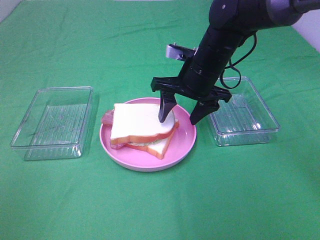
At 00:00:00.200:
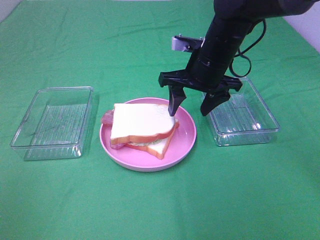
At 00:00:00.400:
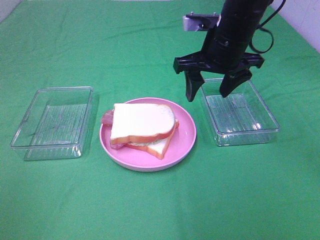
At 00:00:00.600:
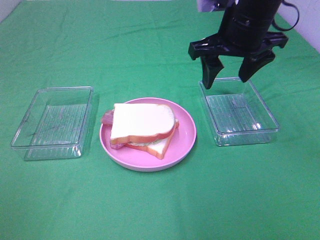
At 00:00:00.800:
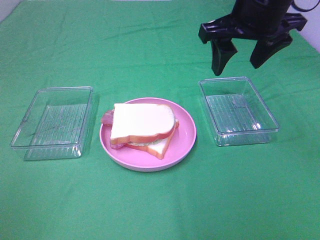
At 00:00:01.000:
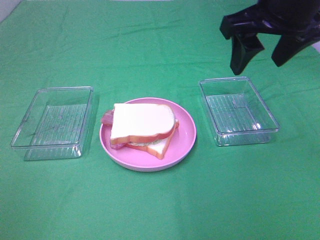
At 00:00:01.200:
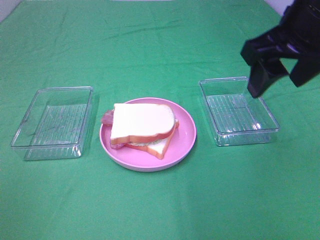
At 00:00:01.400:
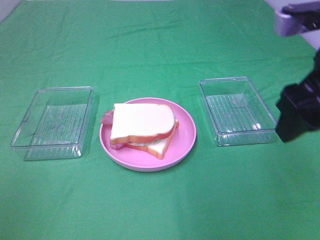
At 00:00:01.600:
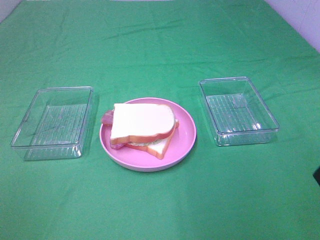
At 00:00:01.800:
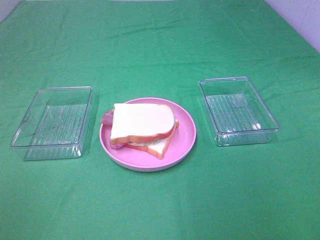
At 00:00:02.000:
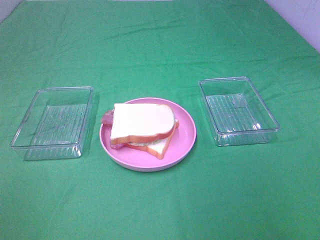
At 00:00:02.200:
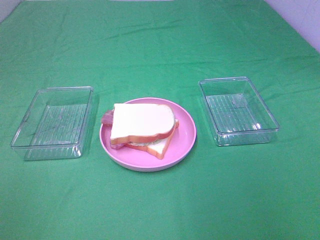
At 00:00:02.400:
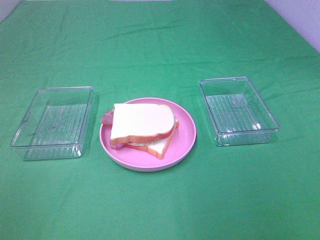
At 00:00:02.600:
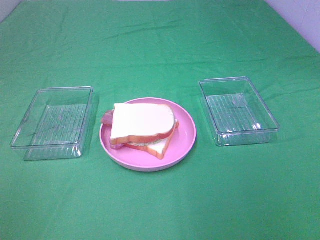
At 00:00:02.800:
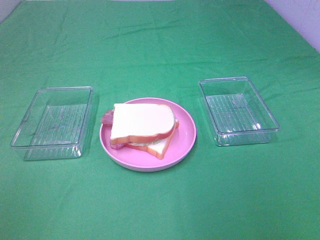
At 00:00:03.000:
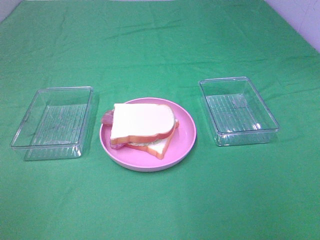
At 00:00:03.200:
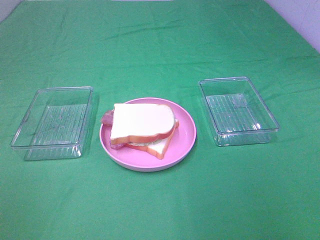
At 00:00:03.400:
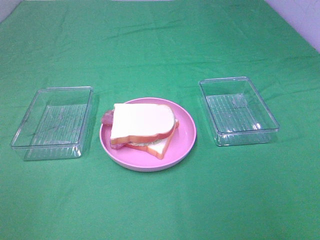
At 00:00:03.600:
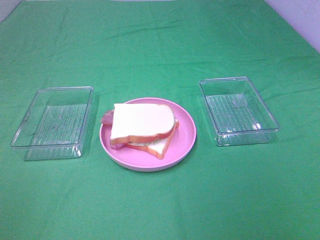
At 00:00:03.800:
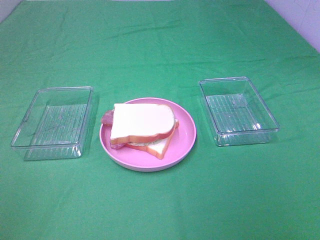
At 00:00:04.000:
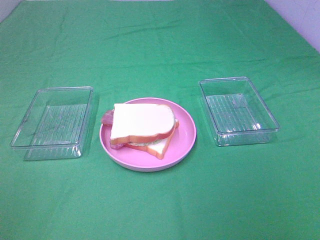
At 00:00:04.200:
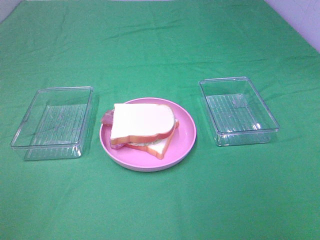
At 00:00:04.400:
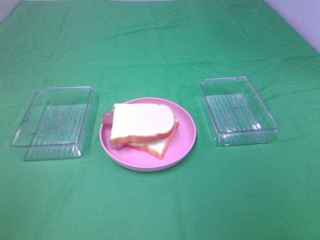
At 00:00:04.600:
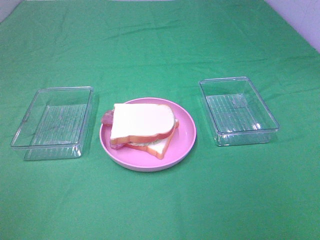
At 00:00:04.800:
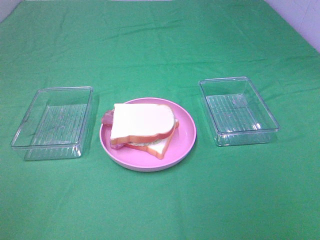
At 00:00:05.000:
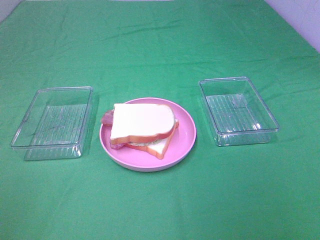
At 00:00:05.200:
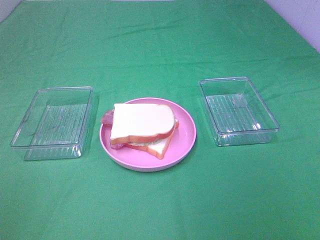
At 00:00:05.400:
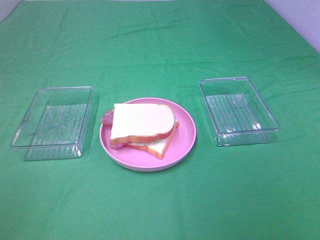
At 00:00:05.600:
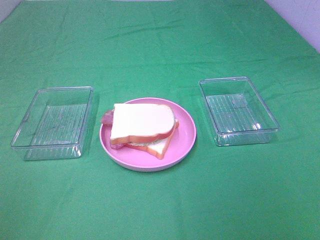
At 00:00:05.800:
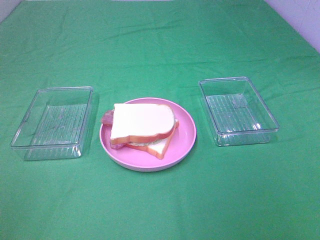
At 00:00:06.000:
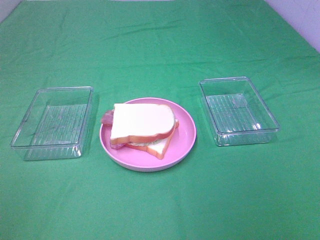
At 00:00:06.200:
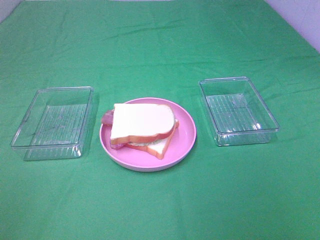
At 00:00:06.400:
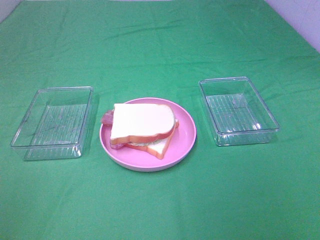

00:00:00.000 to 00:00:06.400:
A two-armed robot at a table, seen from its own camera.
Task of the whole recording: Make sandwiches.
00:00:00.000 to 00:00:01.600: The right gripper travels backward, to the right and upward by some 30 cm.
00:00:04.800 to 00:00:06.400: Both grippers stay put.
